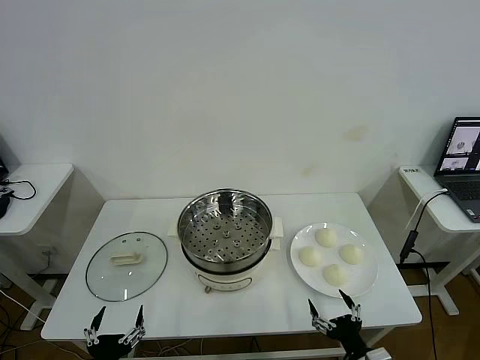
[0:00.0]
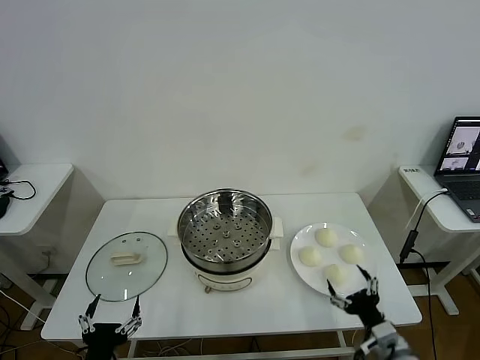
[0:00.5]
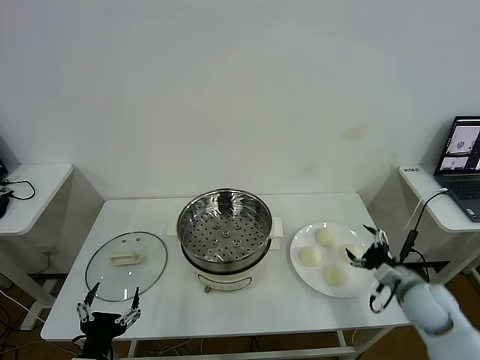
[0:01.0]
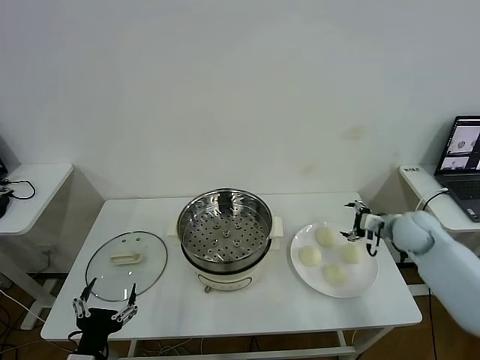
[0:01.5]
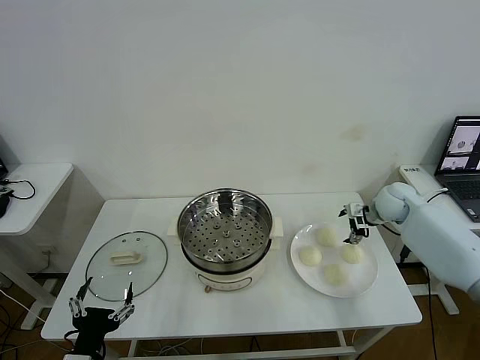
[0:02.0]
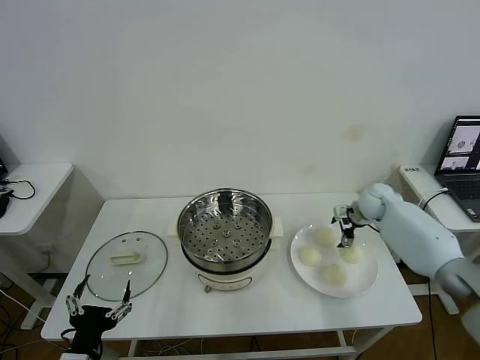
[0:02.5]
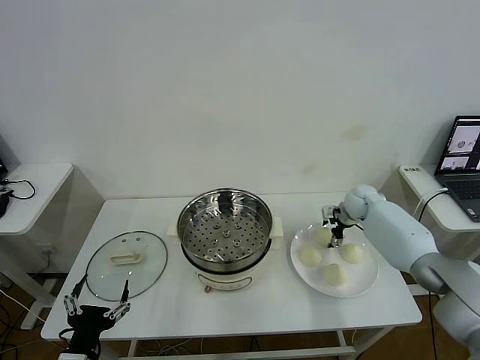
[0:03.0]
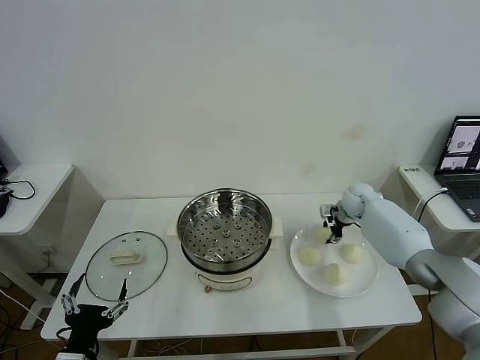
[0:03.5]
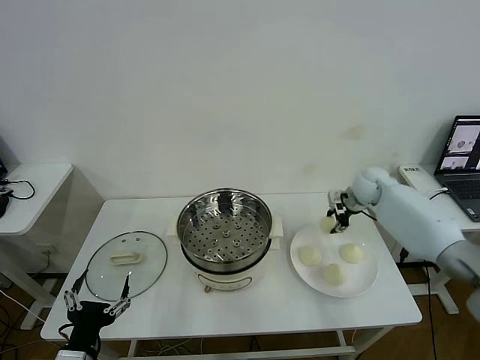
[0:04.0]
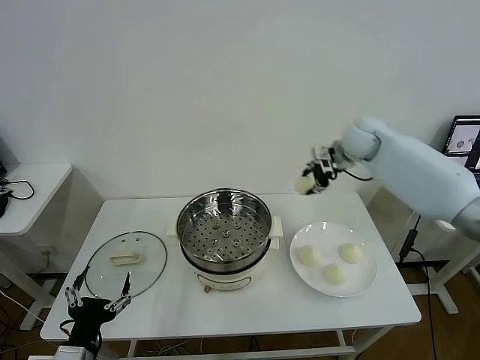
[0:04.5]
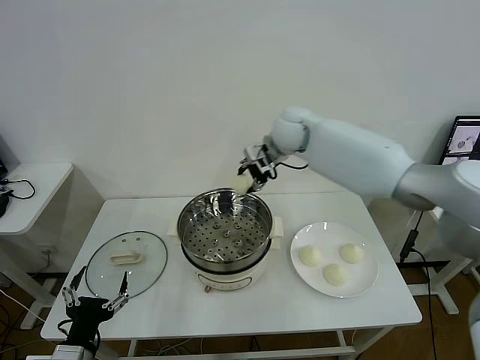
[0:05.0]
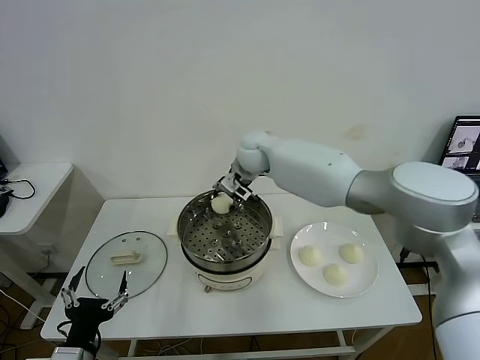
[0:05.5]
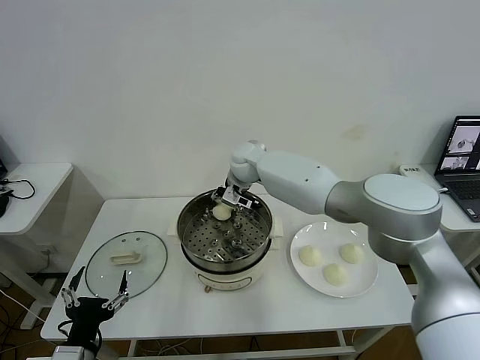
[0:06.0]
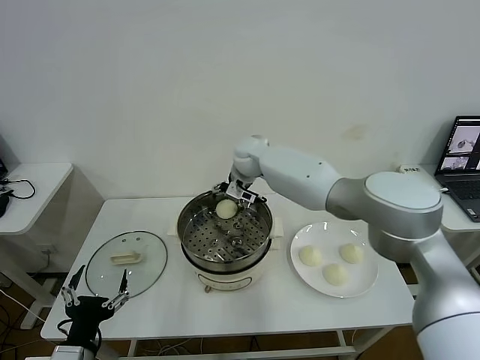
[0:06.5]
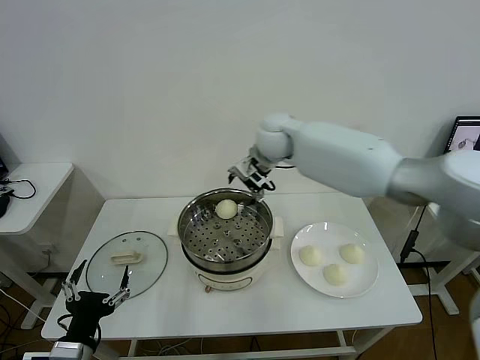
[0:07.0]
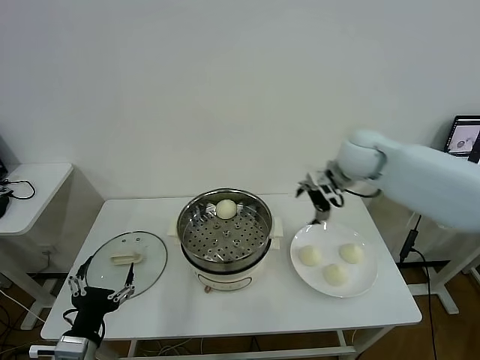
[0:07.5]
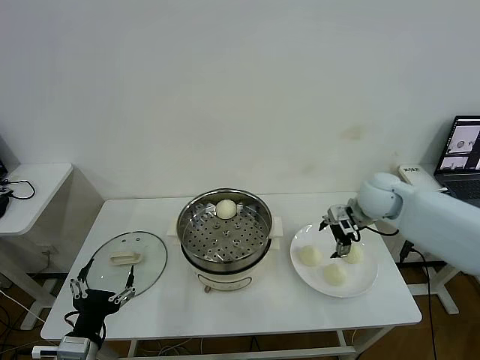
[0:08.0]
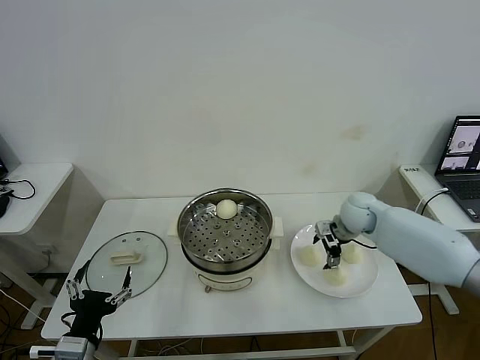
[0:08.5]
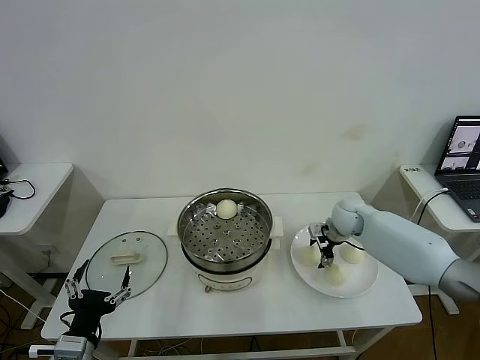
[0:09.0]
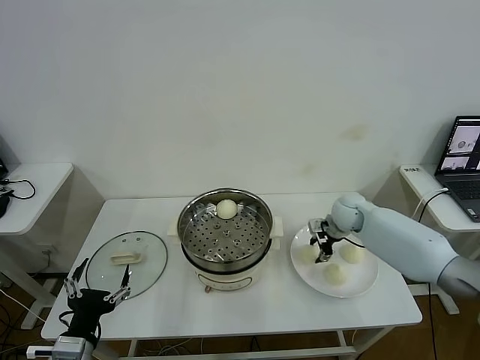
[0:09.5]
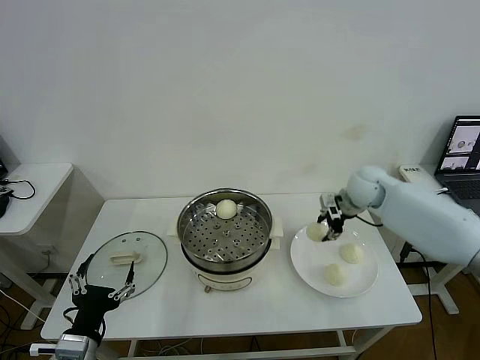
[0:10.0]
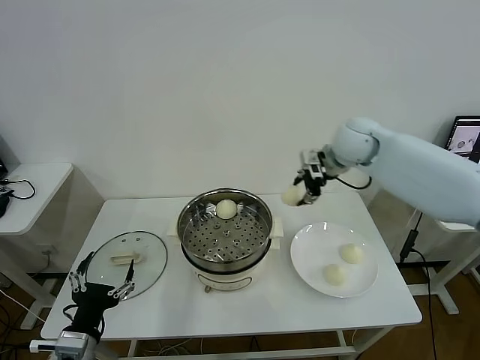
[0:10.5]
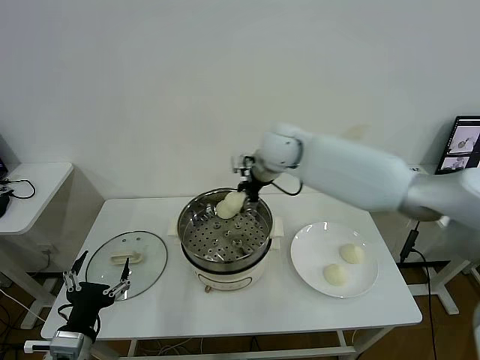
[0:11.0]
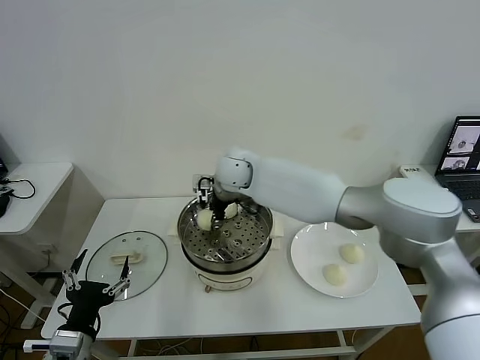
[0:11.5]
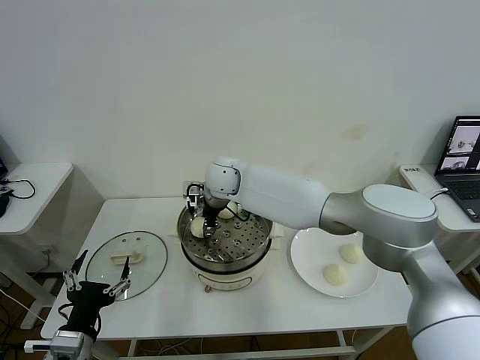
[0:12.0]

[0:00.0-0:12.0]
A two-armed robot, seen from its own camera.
Task of the whole recording: take steamed baozi put them in steamer then cover it.
Step, 0:00.0 to 0:03.0: Grasp the baozi in the plate with right gripper.
Step, 0:04.0 to 0:06.5: Place the baozi on the steamer with right gripper.
Step, 0:07.0 to 0:09.0: Grasp the baozi in the plate with right gripper.
0:02.0 to 0:04.0: The right gripper moves about 5 cm downward and comes back, and closes its fingers.
0:04.0 to 0:06.0: The right gripper shifts roughly 35 cm to the left.
0:06.0 to 0:08.0: The right gripper travels to the right by about 30 cm, and opens up.
0:08.0 to 0:10.0: The right gripper travels downward and back again, some 10 cm each way, and closes its fingers.
0:10.0 to 0:12.0: The right gripper travels to the left by roughly 35 cm, and opens its fingers.

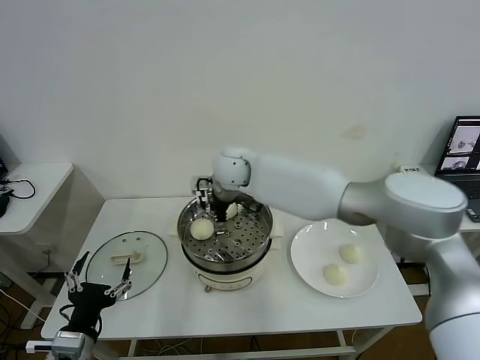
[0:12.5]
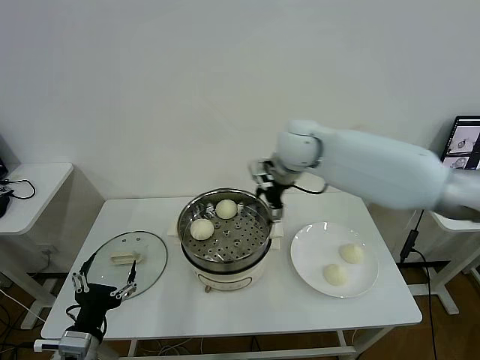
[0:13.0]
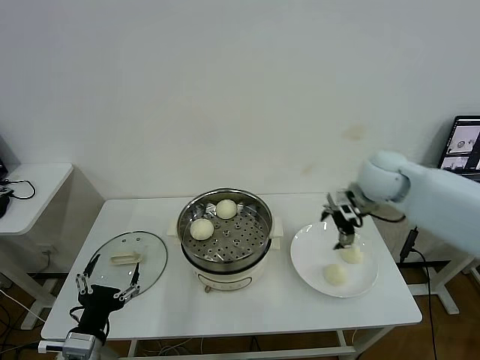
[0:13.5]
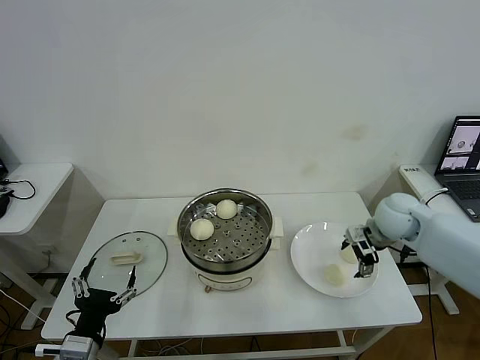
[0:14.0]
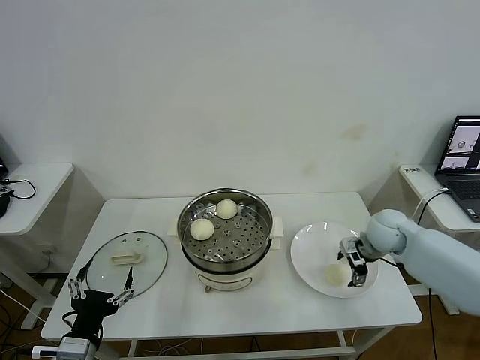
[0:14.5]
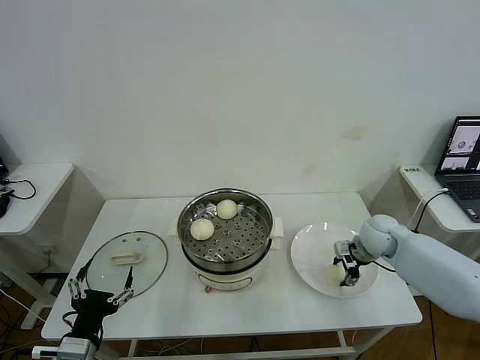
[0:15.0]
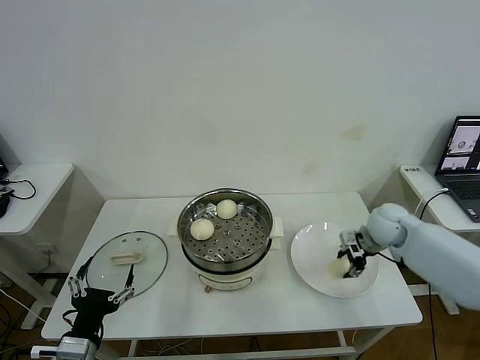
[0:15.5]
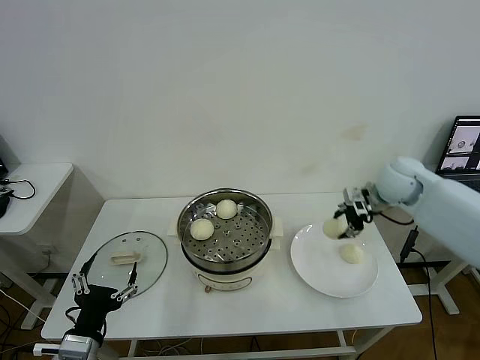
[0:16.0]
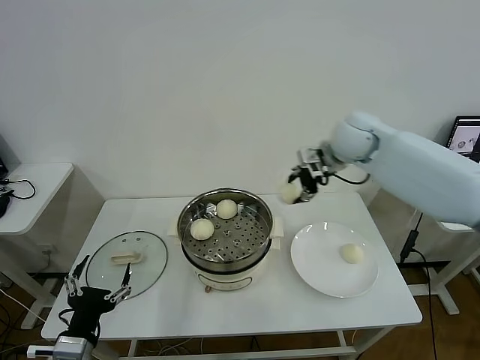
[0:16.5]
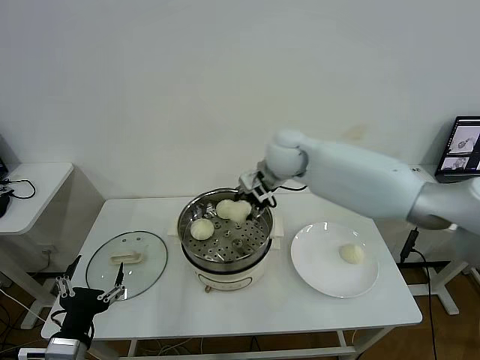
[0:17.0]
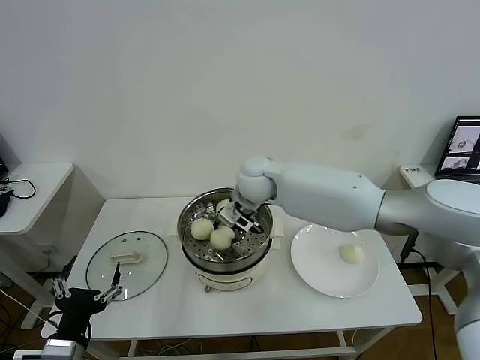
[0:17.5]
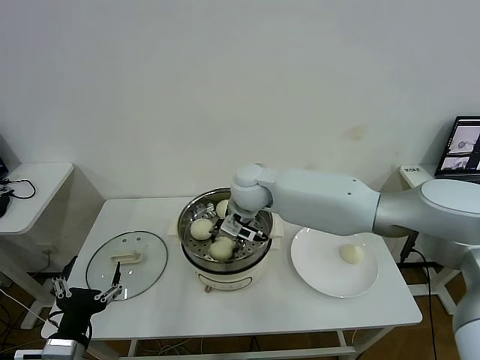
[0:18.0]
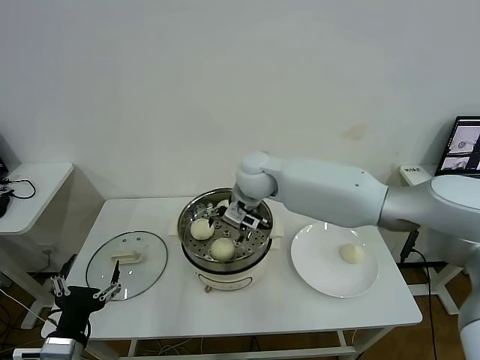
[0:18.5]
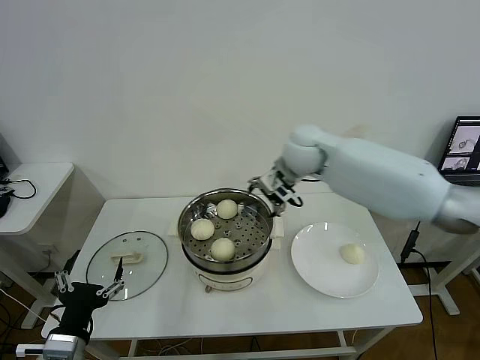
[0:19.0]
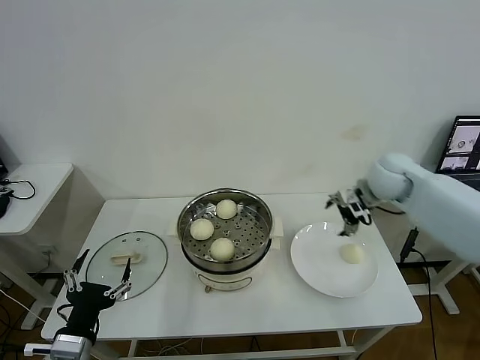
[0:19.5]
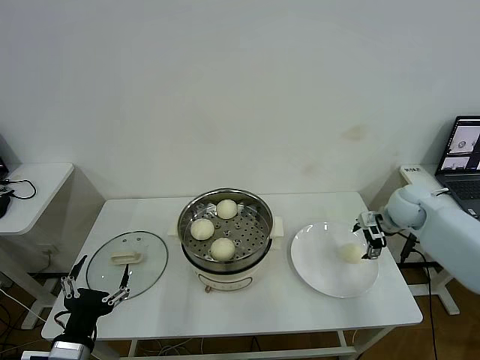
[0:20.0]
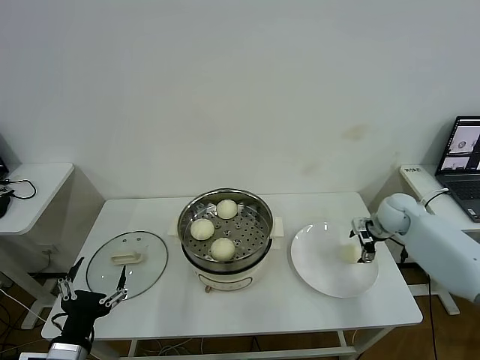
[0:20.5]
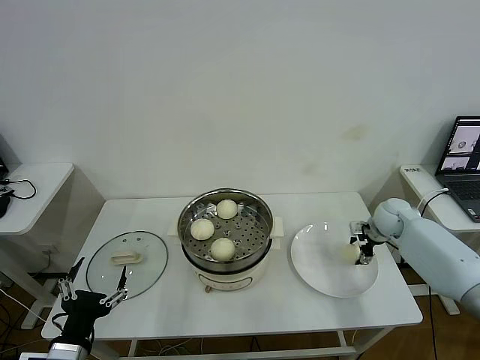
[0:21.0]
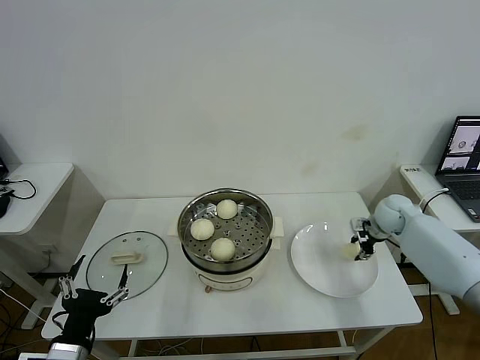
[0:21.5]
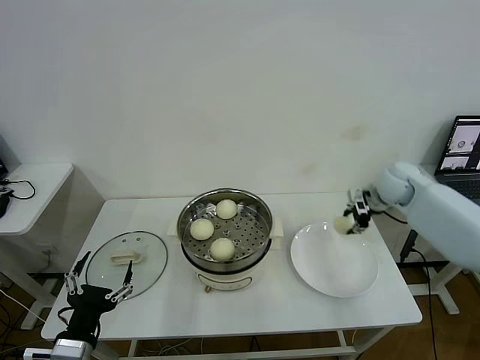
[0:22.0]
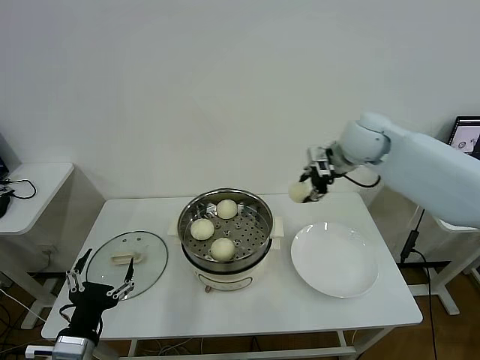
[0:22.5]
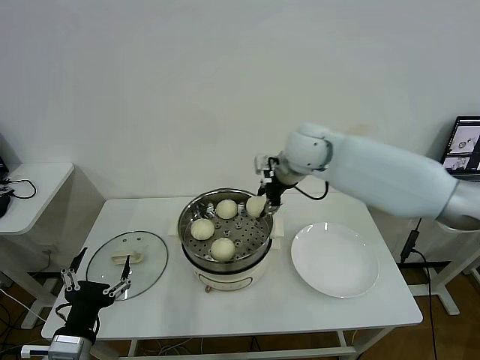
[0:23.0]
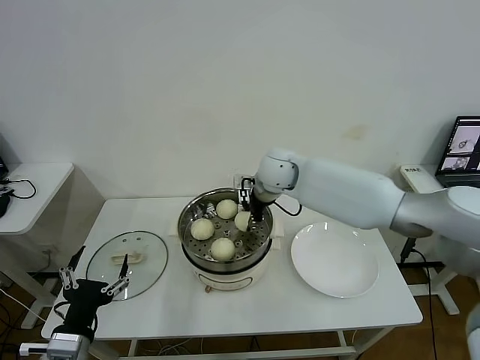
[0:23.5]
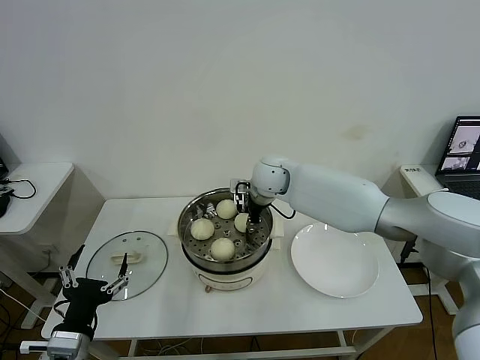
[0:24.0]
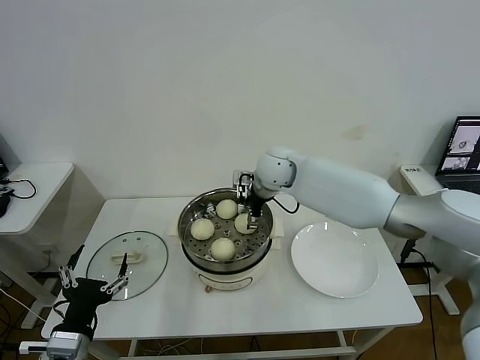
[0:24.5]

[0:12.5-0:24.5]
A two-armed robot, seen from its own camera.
Task of the whole recording: take steamed baozi put them in steamer then cover it.
Step, 0:12.5 to 0:15.0: Grasp the baozi in the plate with right gripper.
Step, 0:15.5 to 0:18.0: Place the baozi on the steamer with right gripper.
Step, 0:19.0 to 0:21.5: Grasp the baozi in the plate with right gripper.
Step, 0:22.0 to 0:24.5: Place the baozi on the steamer with right gripper.
0:12.5 to 0:14.5: The right gripper heads to the right, covering some 35 cm.
0:14.5 to 0:16.5: The right gripper shifts approximately 25 cm upward and to the left, and closes up.
0:16.5 to 0:18.5: The right gripper moves to the left and downward, approximately 20 cm, and opens.
0:18.5 to 0:20.5: The right gripper travels to the right by about 35 cm.
0:20.5 to 0:22.5: The right gripper shifts some 25 cm upward and to the left, and closes.
0:22.5 to 0:24.5: The right gripper is displaced to the left and downward by some 20 cm, and opens up.

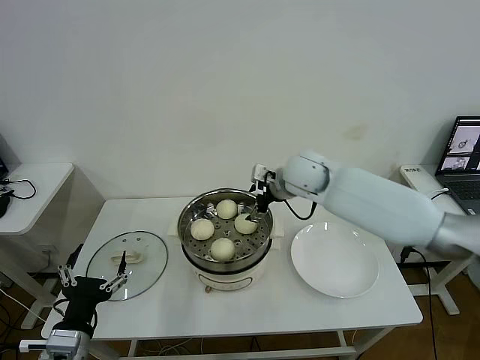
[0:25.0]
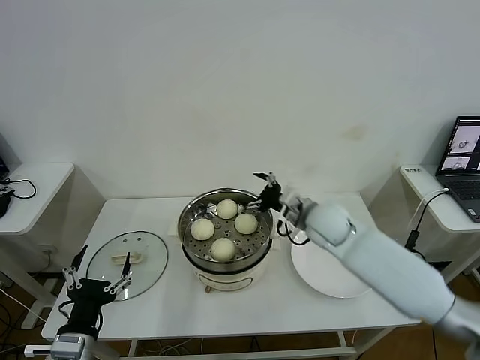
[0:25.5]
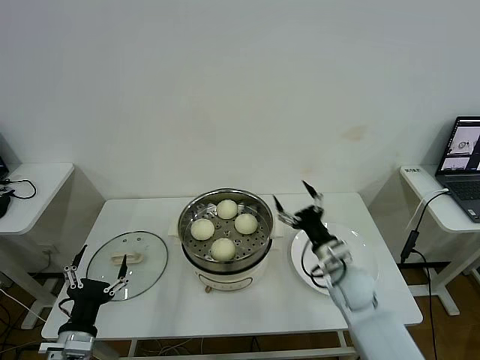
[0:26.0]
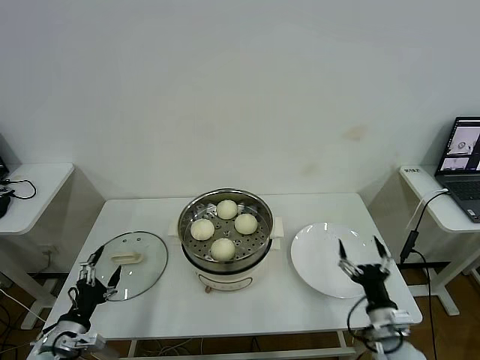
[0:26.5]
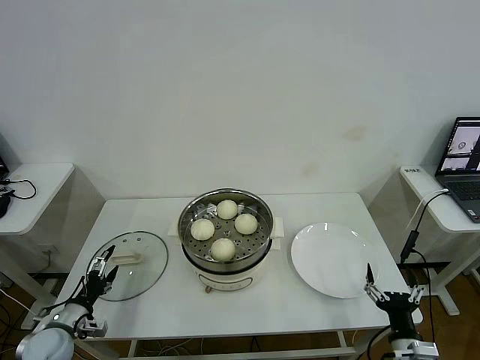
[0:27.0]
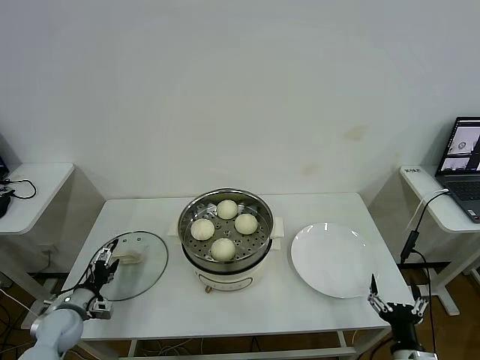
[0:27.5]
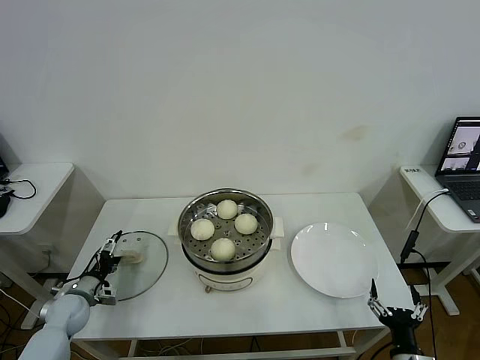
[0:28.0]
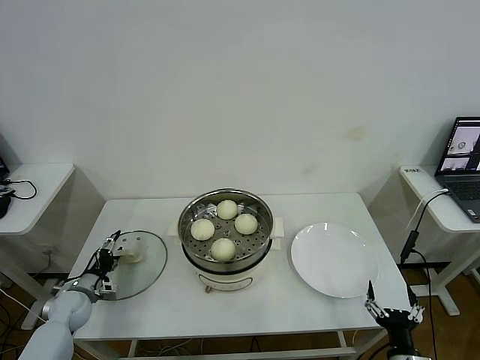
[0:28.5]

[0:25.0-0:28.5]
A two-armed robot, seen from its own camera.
Task of the whole recording: take steamed baozi put them in steamer then cover it.
0:25.0 to 0:27.0: The left gripper is displaced downward, to the left and forward by some 20 cm, while the right gripper is displaced backward, downward and to the right by some 50 cm.
0:27.0 to 0:28.5: The left gripper goes roughly 10 cm forward.
